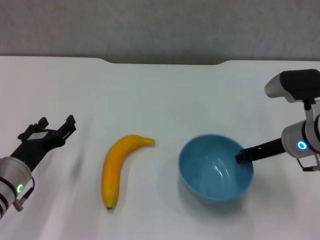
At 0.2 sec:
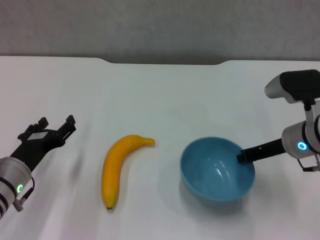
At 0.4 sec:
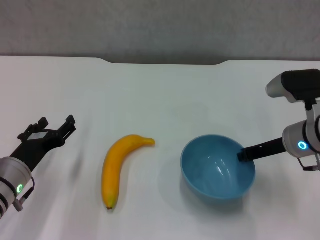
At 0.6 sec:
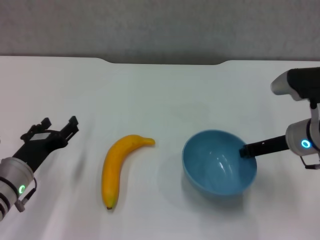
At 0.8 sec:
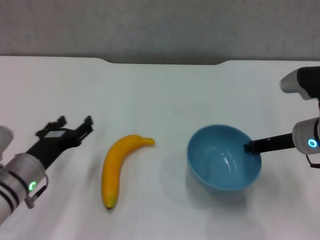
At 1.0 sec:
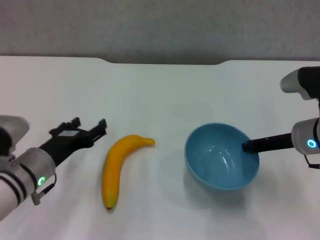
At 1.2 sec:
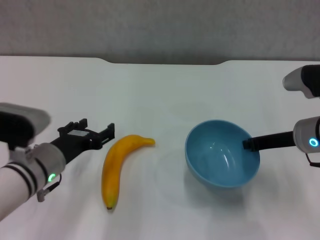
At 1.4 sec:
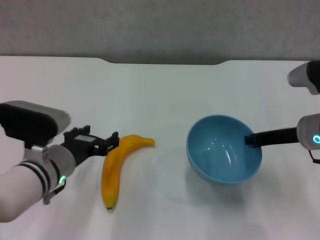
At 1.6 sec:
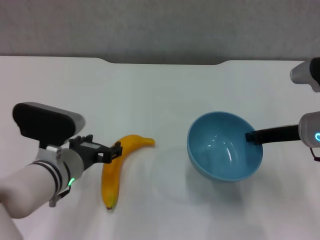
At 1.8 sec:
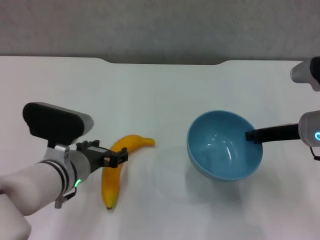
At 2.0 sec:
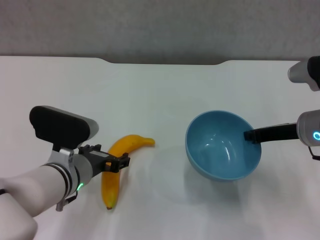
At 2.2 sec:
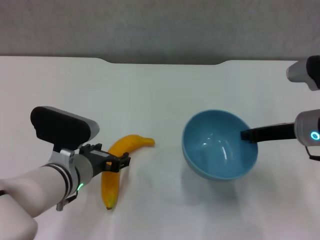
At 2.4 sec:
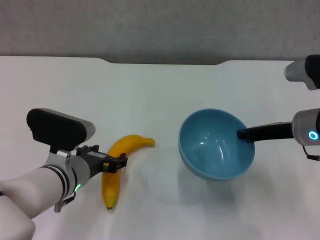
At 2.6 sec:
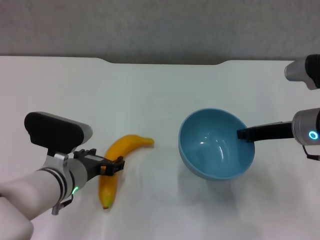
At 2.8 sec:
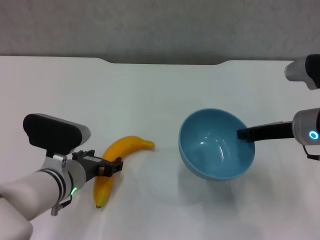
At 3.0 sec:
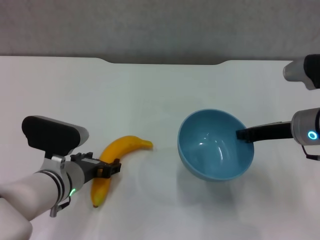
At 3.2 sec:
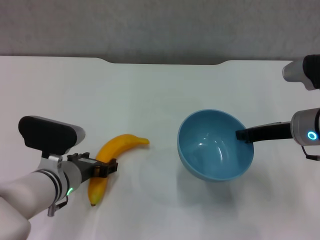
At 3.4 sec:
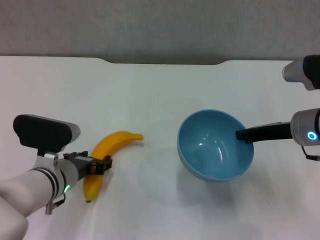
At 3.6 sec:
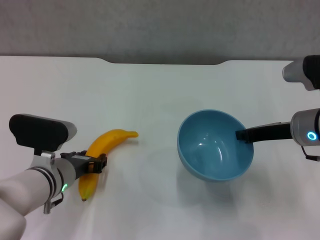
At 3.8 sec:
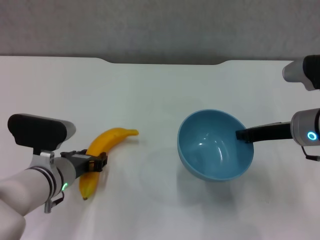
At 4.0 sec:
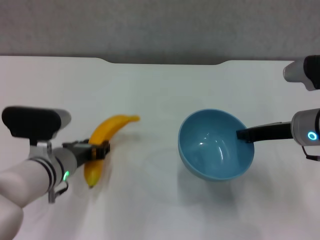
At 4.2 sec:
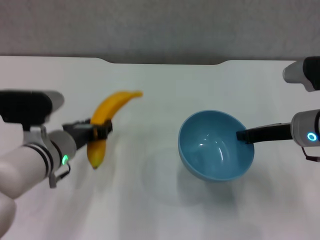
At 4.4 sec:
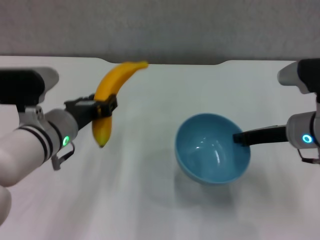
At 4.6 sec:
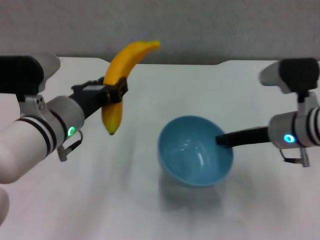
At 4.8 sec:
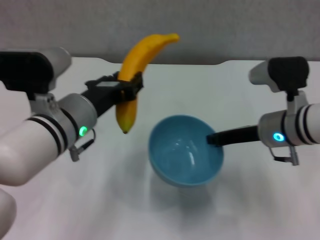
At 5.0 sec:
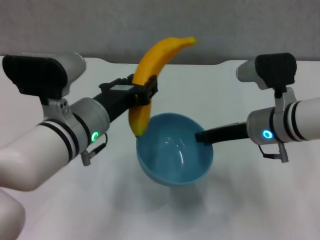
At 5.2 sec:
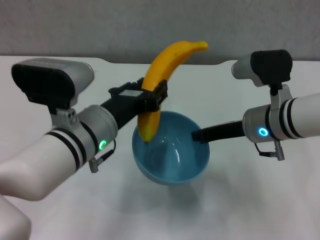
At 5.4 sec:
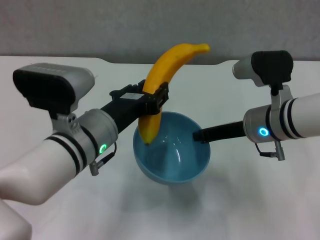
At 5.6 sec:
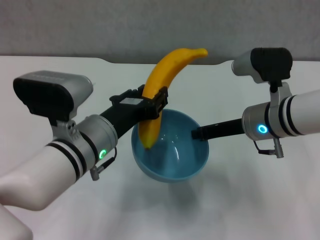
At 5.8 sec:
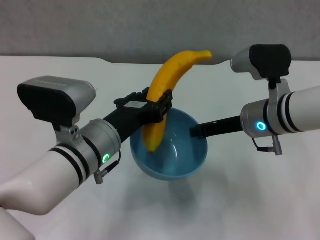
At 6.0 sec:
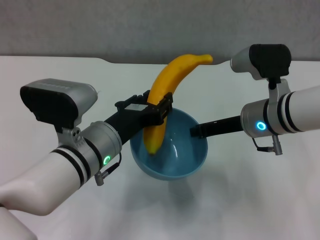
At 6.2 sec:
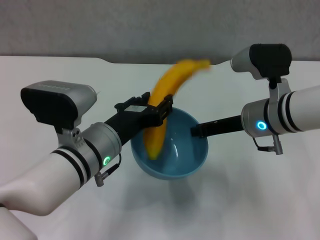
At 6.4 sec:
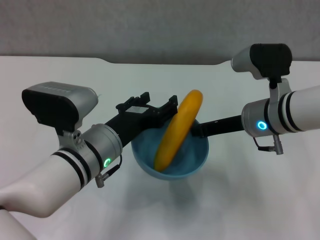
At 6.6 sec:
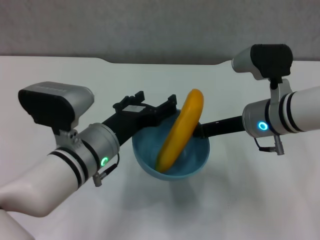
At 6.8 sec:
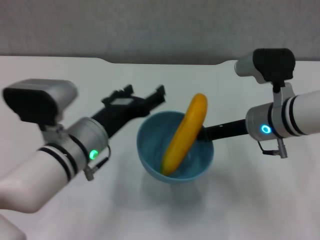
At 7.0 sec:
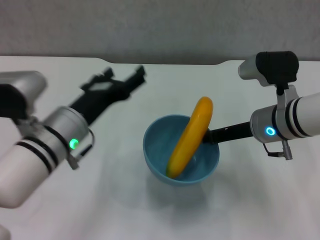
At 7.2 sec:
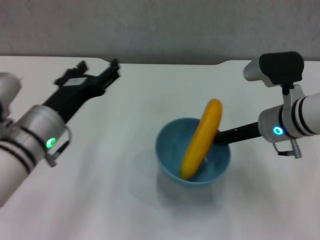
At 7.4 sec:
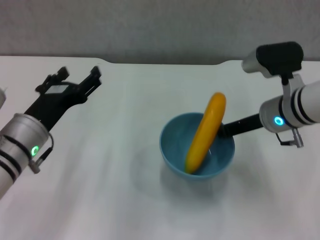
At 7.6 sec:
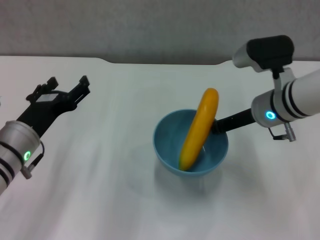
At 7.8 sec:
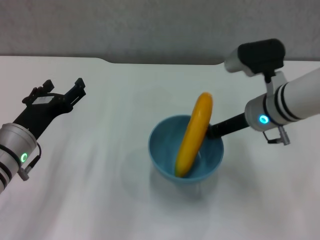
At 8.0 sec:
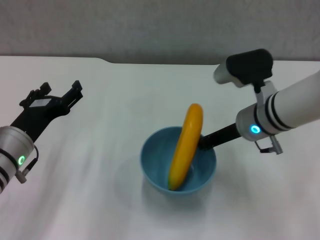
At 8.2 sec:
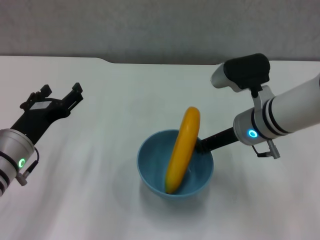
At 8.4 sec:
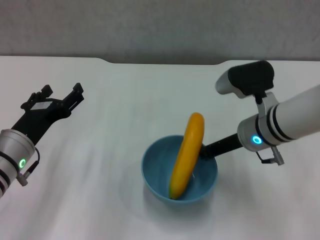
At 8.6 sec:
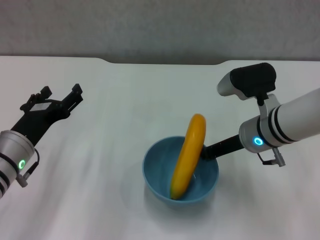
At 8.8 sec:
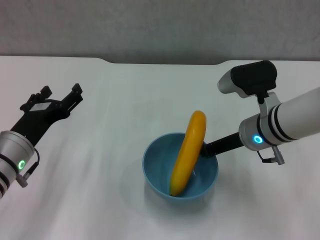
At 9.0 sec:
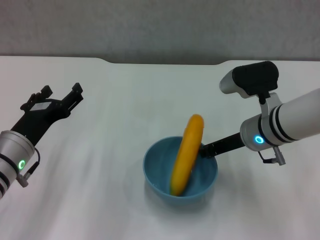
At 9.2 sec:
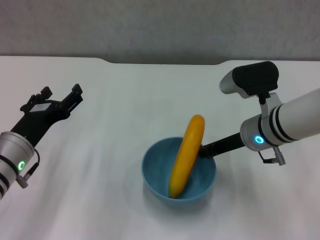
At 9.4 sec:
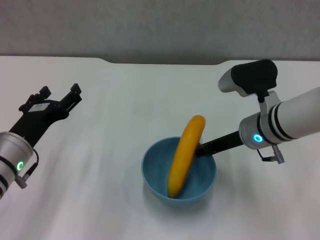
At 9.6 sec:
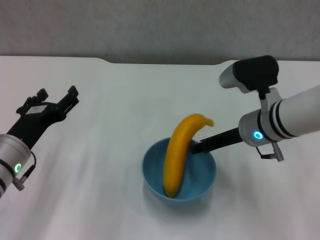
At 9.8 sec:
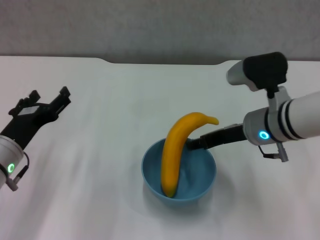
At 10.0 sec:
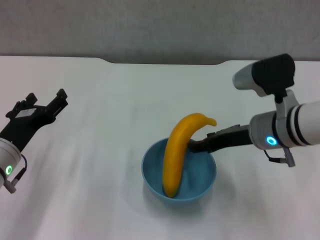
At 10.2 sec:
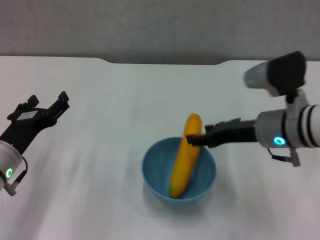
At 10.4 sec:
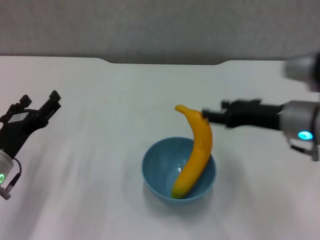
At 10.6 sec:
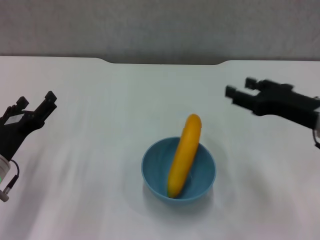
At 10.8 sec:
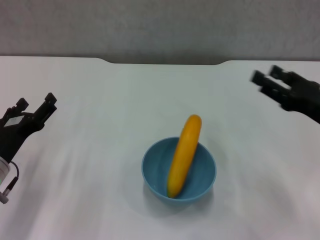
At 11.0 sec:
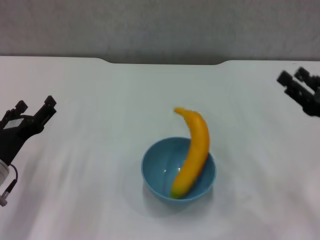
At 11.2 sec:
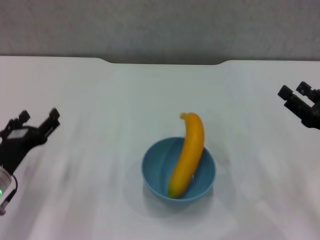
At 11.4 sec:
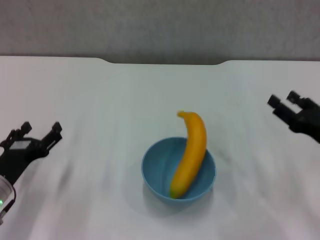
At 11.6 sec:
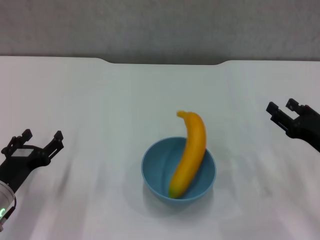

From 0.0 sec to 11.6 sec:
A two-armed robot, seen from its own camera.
Step, from 0.2 sec to 1.6 sec: Lift the blue bowl with right gripper.
Step, from 1.8 sec to 3.0 sec: Grasp the banana with left gripper.
Step, from 3.2 sec to 6.4 sec: Place the banana in the blue bowl with left gripper.
Step, from 6.6 sec to 10.0 sec: Place the bowl on the table with right gripper.
From 0.0 sec to 1.4 sec: The left gripper goes some 5 cm to the right; the right gripper closes.
From 1.4 sec to 2.8 sec: The grippers make only small movements.
From 2.8 sec to 4.4 sec: The left gripper travels upward by about 10 cm, and closes.
From 4.4 sec to 5.8 sec: The right gripper travels to the left by approximately 5 cm. Meanwhile the left gripper is displaced to the right by roughly 5 cm.
From 5.8 sec to 7.2 sec: The left gripper goes approximately 5 cm to the left, and opens.
From 7.2 sec to 8.8 sec: The left gripper moves to the left, roughly 5 cm.
From 8.8 sec to 10.2 sec: The right gripper opens up.
From 10.2 sec to 11.6 sec: The right gripper shifts some 15 cm to the right, downward and backward. The left gripper ends up approximately 5 cm from where it was.
